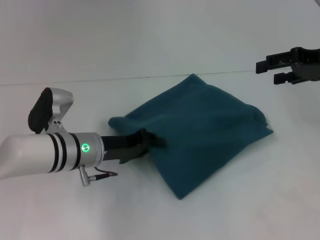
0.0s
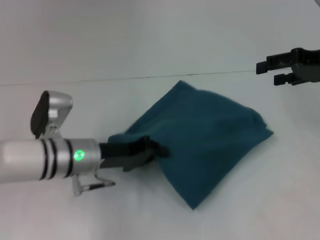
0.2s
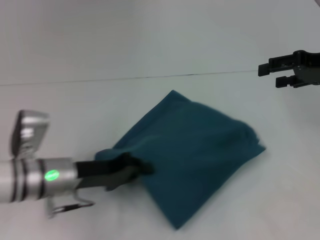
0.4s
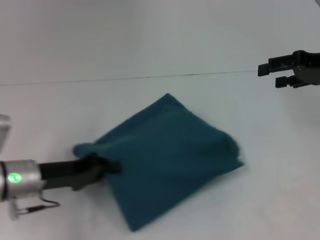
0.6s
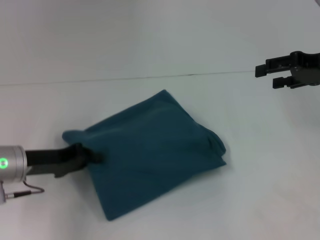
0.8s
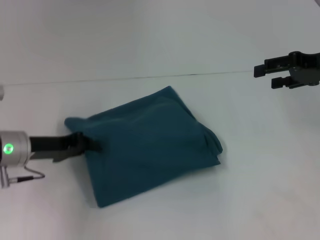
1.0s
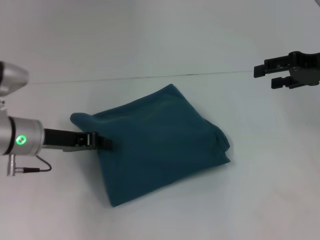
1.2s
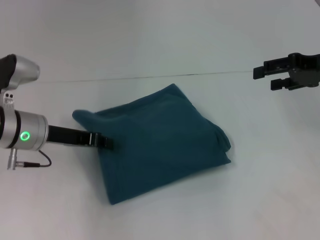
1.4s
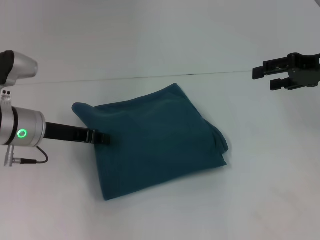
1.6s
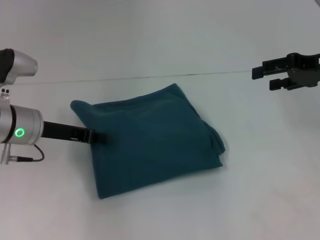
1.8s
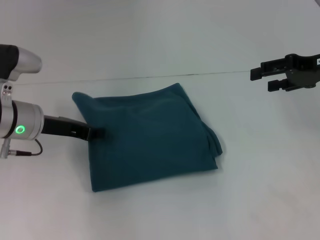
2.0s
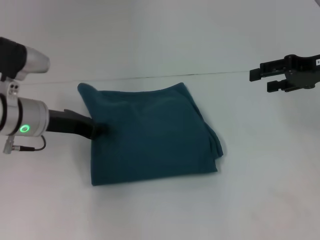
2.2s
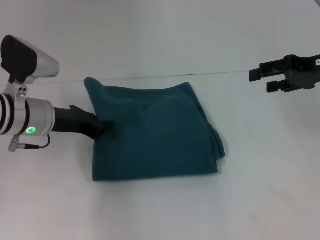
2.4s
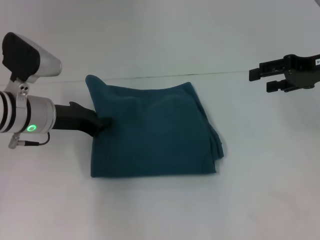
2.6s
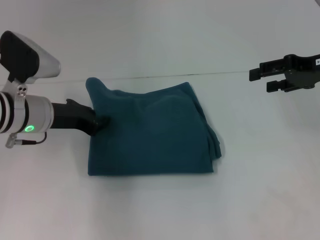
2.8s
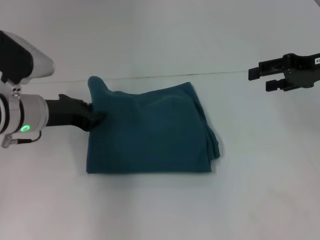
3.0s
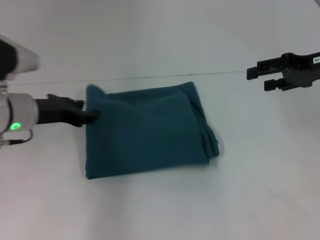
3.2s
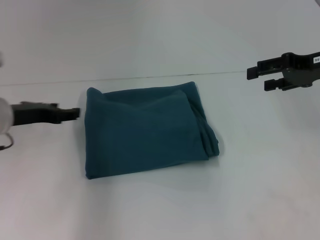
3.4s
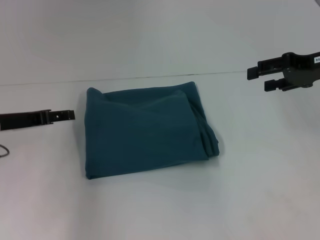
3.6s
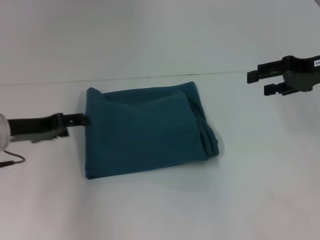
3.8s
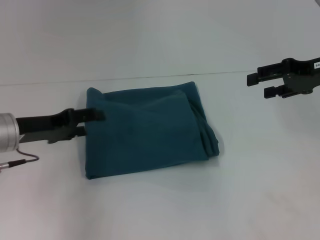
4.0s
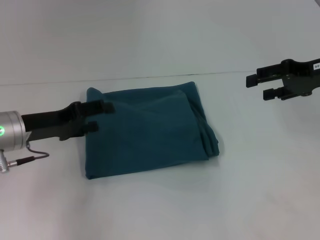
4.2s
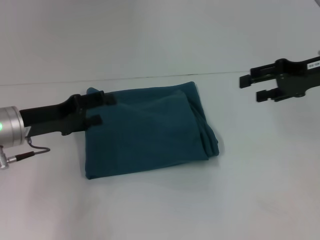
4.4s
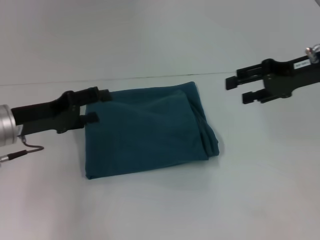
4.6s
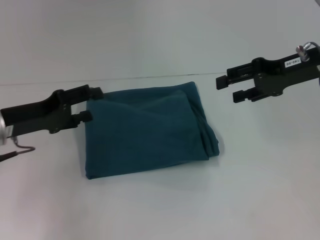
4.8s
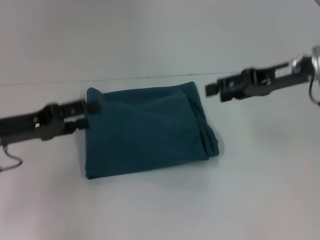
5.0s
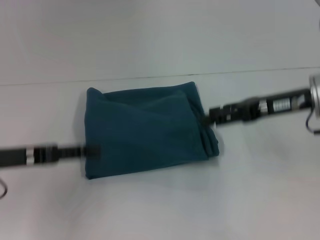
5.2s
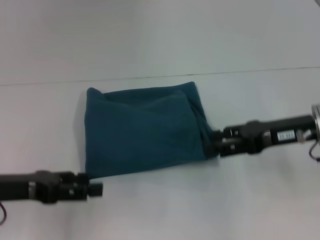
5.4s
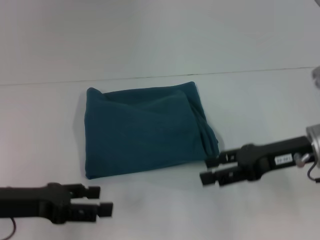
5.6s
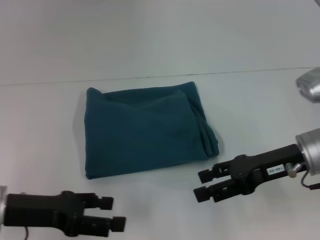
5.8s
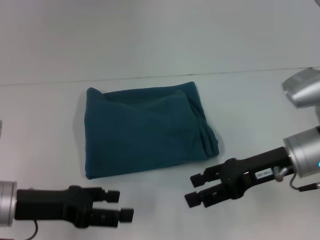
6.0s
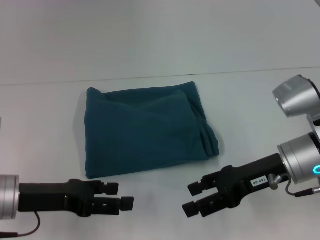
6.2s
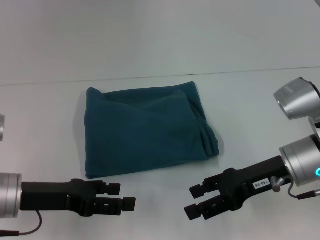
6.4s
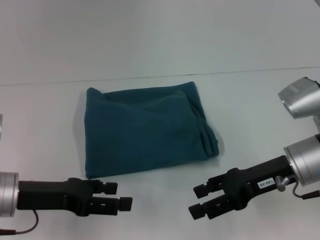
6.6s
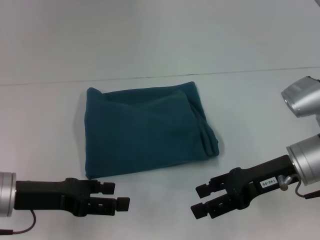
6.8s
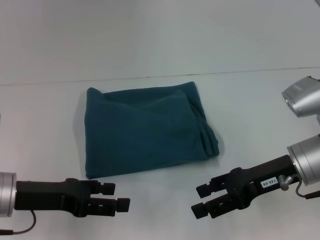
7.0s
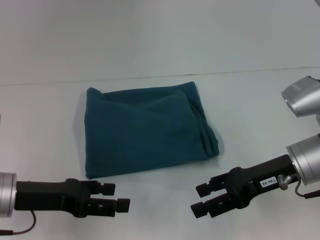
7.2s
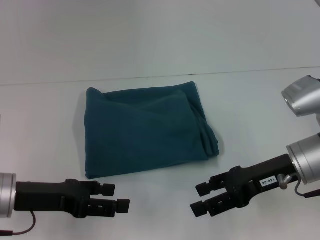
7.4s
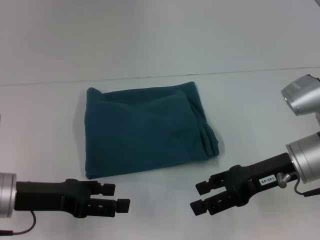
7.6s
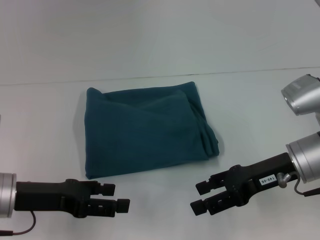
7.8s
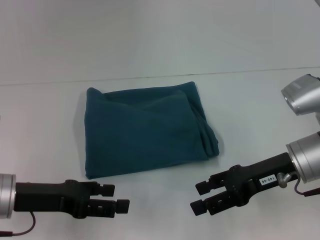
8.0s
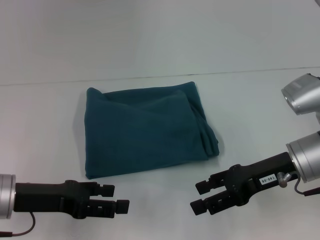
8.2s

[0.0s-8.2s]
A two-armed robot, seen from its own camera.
0.0s to 1.6s: The left gripper heads to the left and upward, covering about 10 cm, and closes.
3.2s to 5.0s: The right gripper goes about 5 cm to the left. The left gripper shifts roughly 10 cm backward and to the left, and opens its fingers.
5.0s to 6.6s: The left gripper ends up approximately 5 cm from where it was, while the right gripper is displaced downward and backward by some 10 cm.
6.6s to 8.2s: The two grippers keep their place.

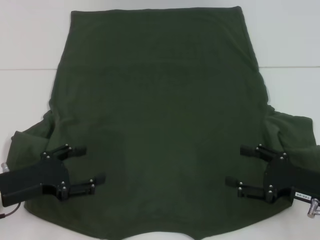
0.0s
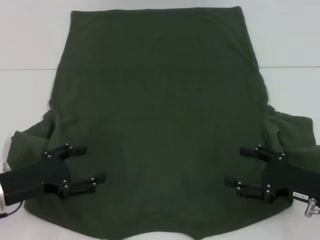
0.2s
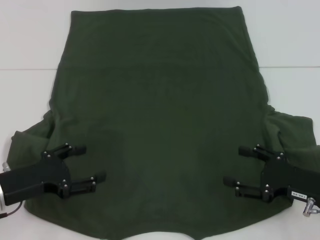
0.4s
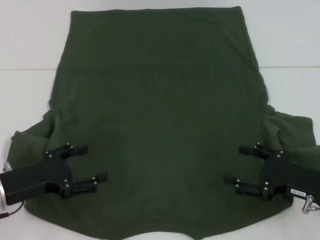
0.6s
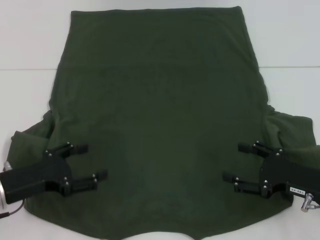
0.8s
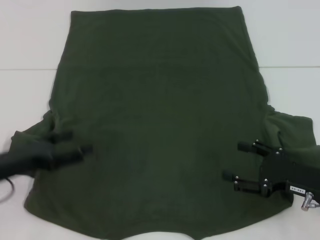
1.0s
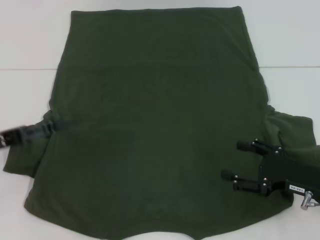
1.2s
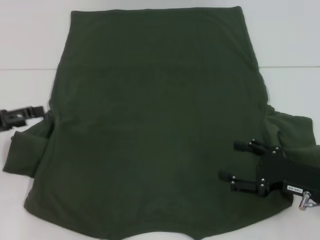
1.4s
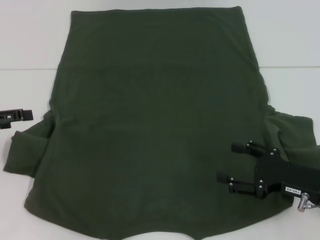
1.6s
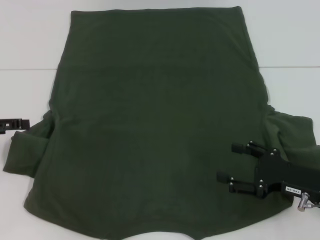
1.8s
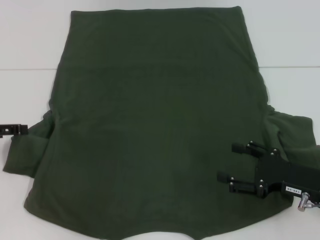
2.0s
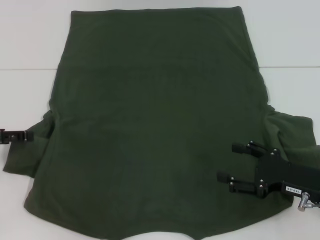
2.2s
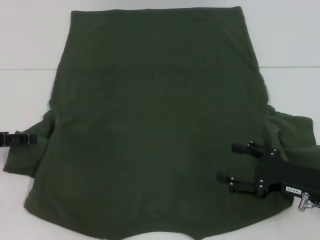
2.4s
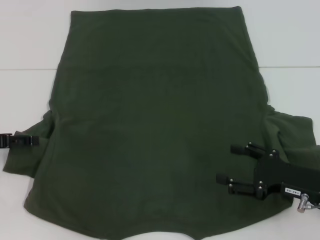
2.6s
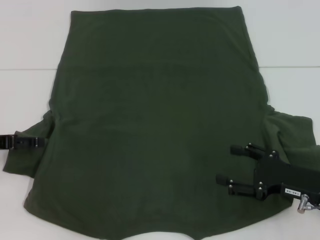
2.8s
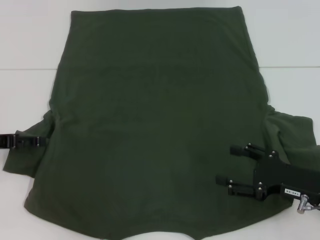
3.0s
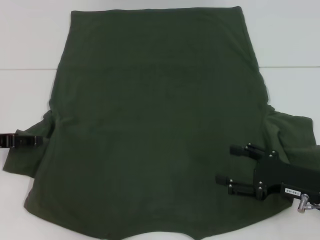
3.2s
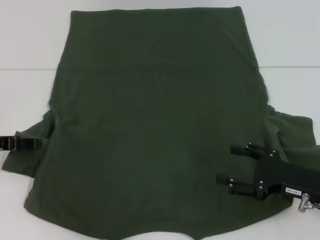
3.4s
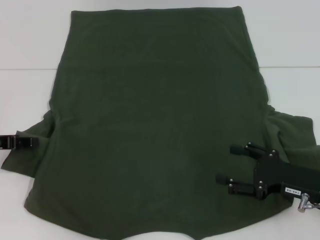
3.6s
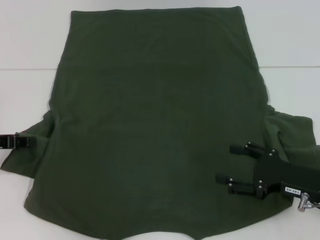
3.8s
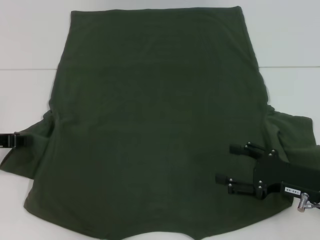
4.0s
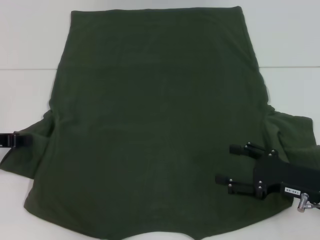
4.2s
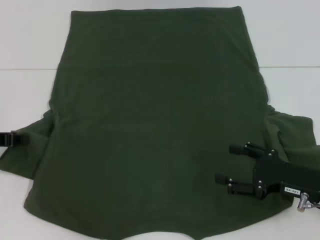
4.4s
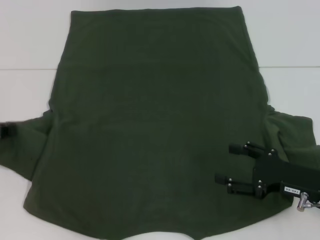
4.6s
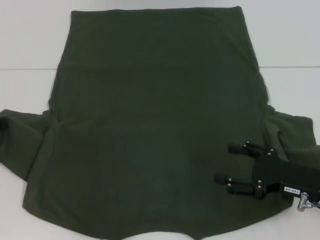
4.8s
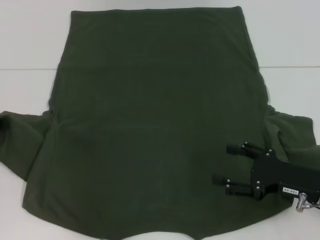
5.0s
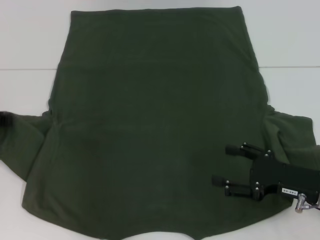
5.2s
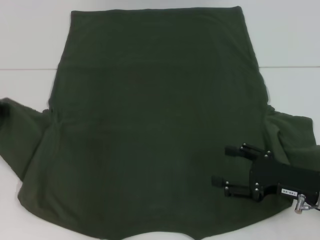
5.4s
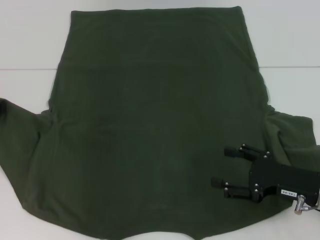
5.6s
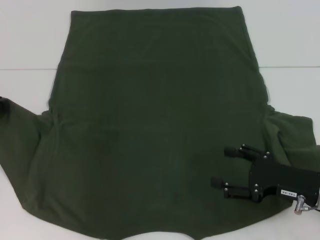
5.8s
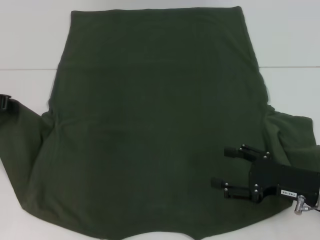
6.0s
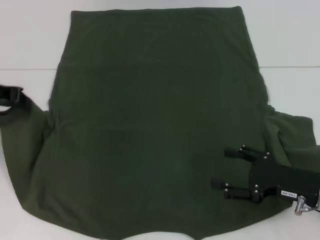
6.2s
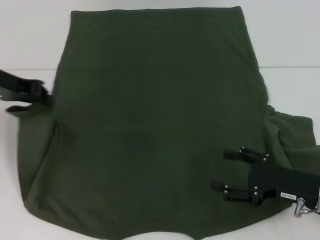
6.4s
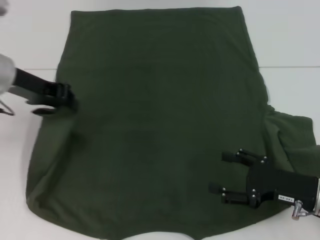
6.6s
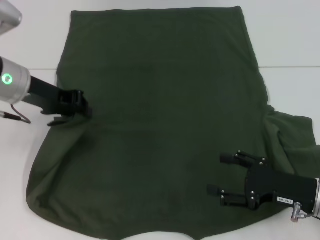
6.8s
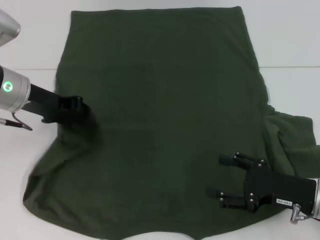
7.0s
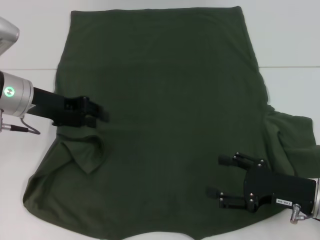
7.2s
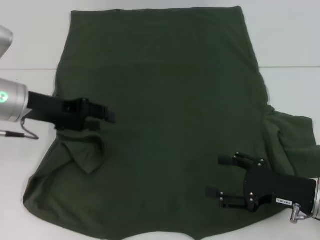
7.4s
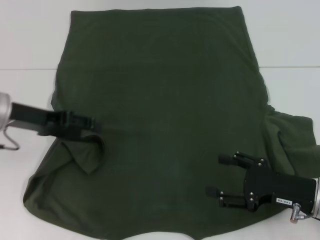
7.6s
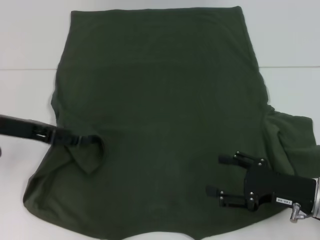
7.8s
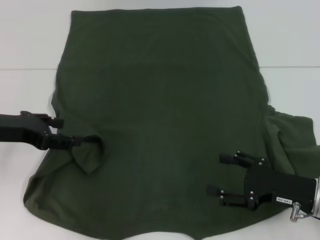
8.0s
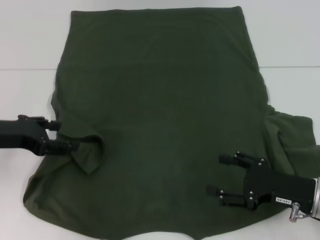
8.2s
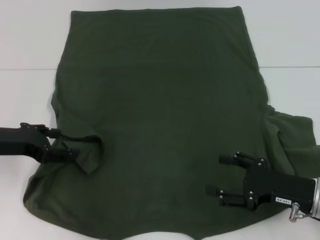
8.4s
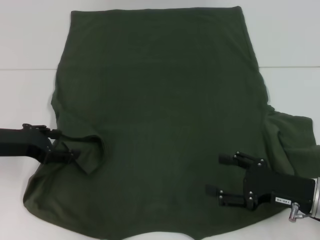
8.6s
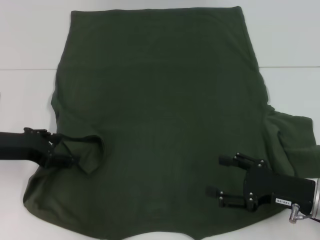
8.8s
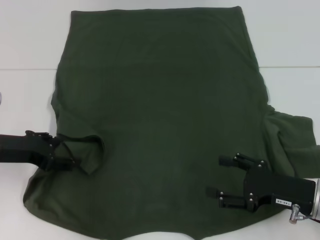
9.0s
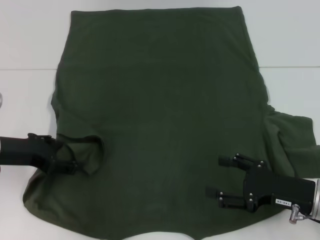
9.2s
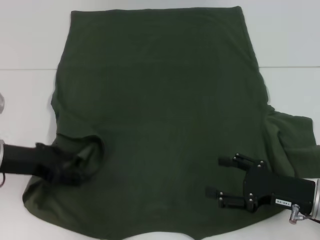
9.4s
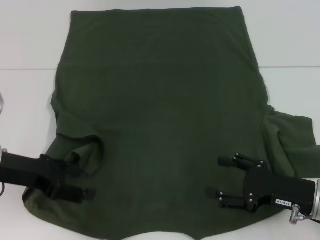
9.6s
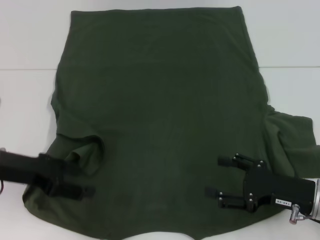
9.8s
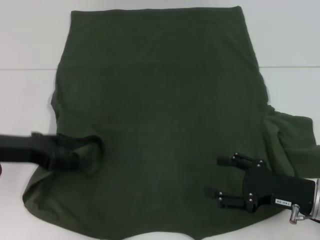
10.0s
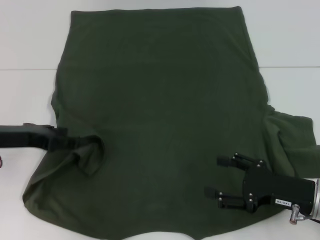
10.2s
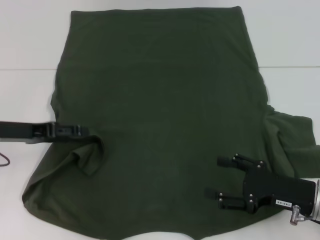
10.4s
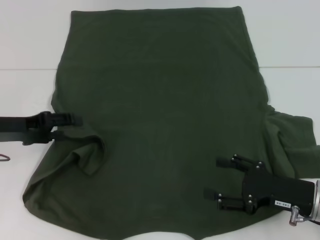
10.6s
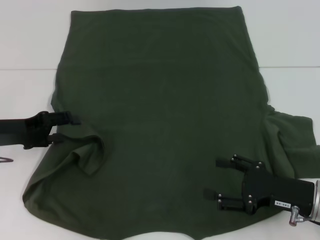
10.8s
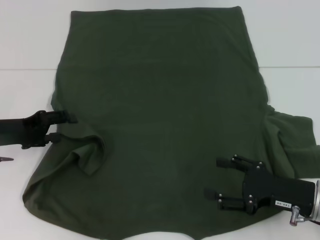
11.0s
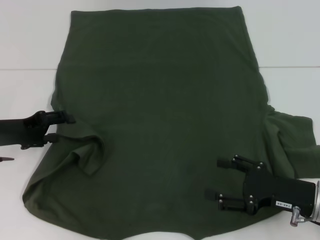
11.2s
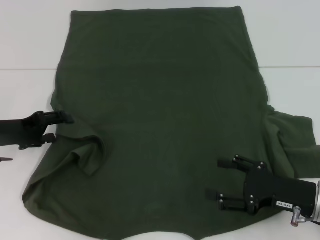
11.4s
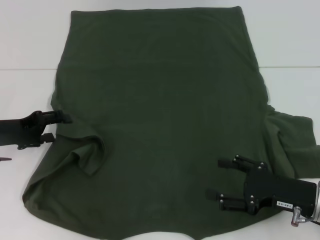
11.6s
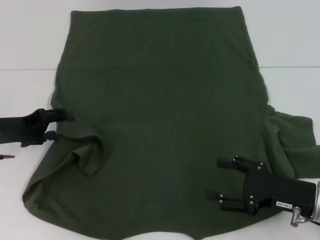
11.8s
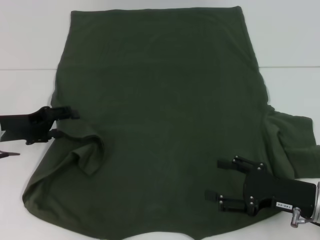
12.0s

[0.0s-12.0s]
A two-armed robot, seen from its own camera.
0.0s to 1.6s: The left gripper goes approximately 15 cm to the left, upward and forward.
1.6s to 3.0s: There are only small adjustments of the grippers.
3.0s to 4.4s: The left gripper closes its fingers.
4.4s to 6.0s: The left gripper goes some 10 cm upward.
6.0s to 7.6s: The left gripper goes approximately 5 cm to the right, and opens.
7.6s to 9.0s: The left gripper ends up about 5 cm from where it was.

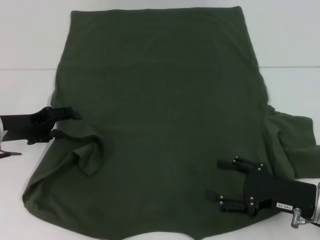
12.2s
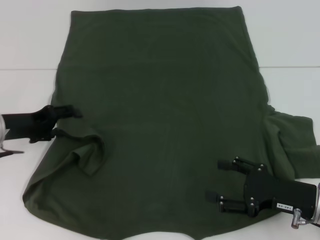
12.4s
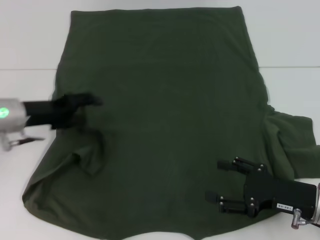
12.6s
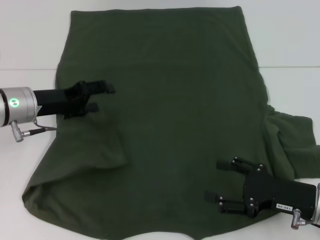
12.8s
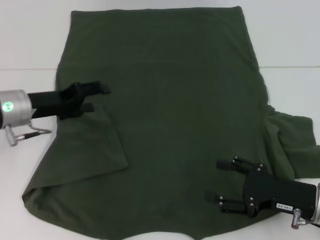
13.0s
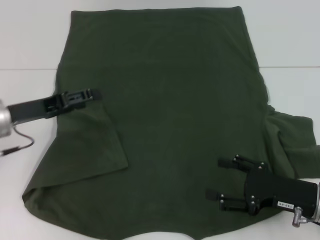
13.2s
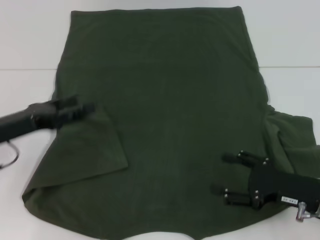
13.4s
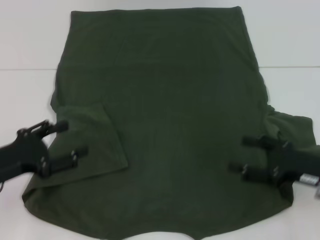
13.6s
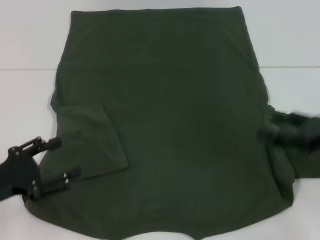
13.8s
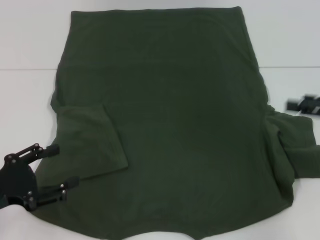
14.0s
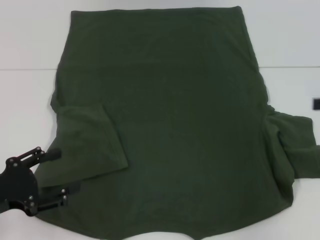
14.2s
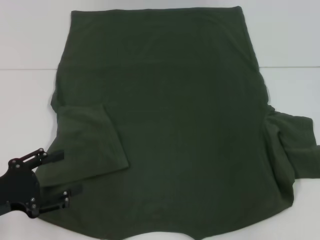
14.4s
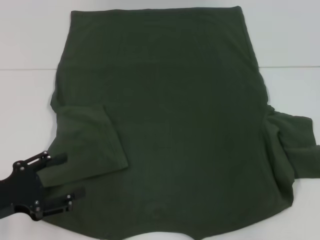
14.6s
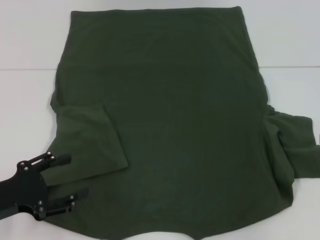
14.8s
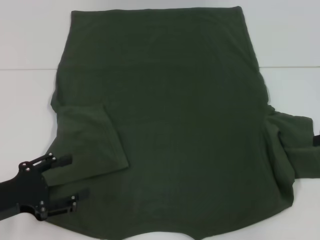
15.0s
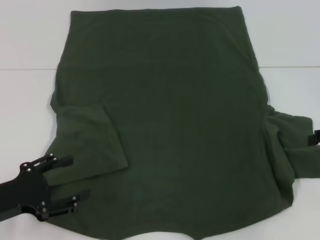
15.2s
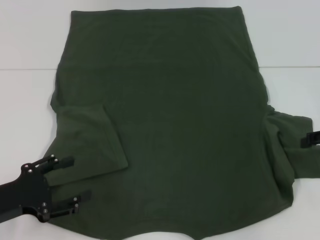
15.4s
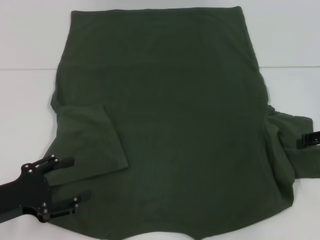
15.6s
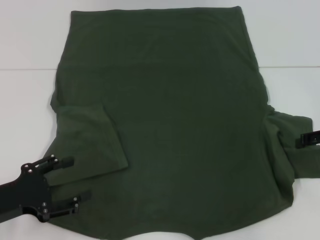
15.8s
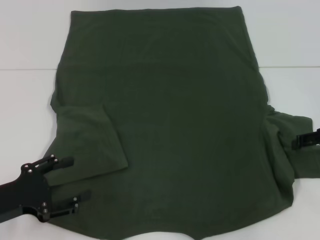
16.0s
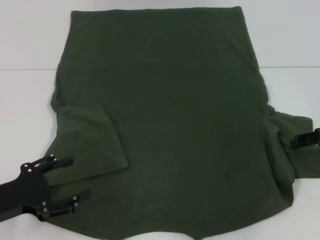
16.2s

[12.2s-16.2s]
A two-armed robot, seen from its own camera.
12.2s to 13.6s: The left gripper goes roughly 10 cm backward.
13.6s to 14.8s: The right gripper is displaced to the right, upward and forward by approximately 15 cm.
